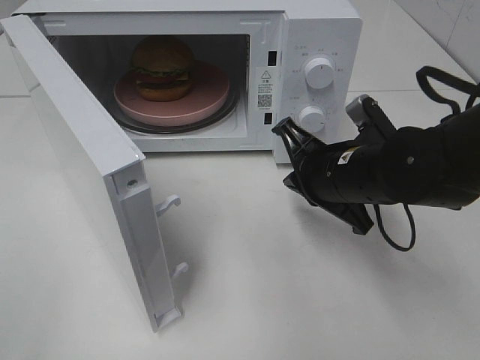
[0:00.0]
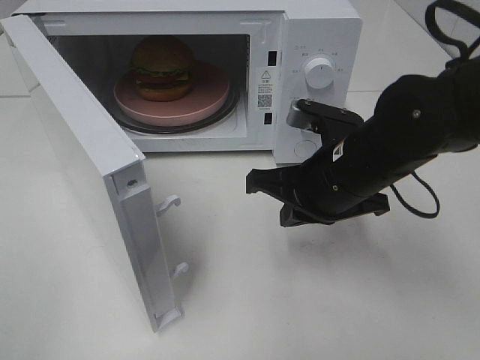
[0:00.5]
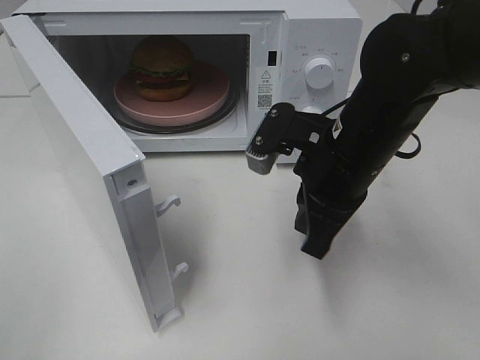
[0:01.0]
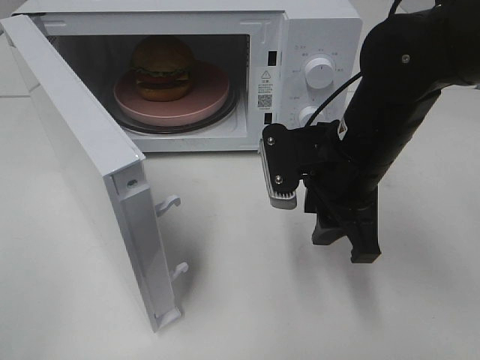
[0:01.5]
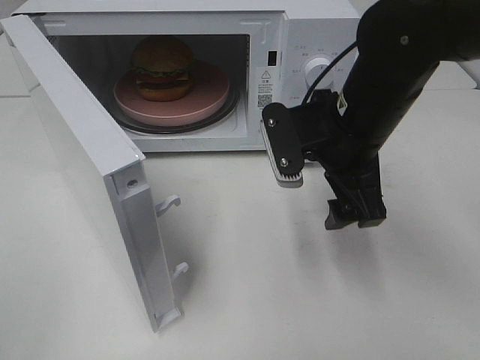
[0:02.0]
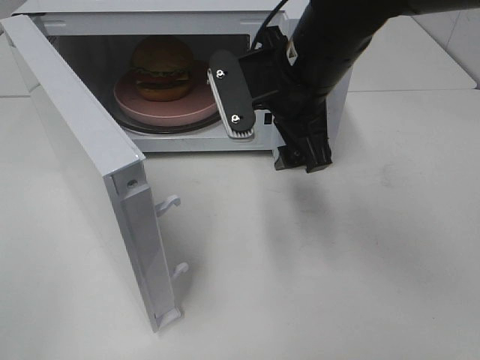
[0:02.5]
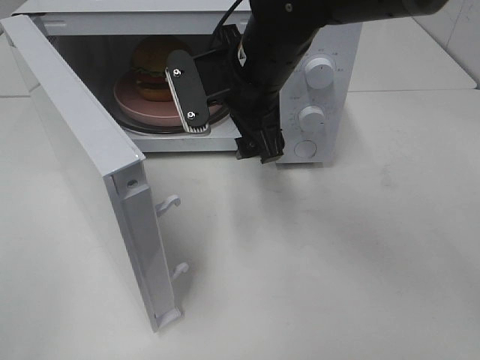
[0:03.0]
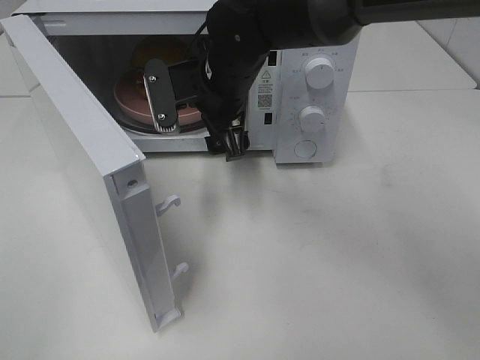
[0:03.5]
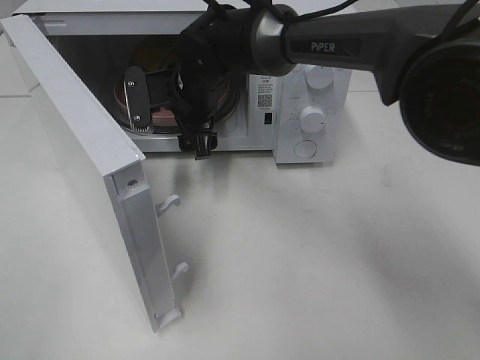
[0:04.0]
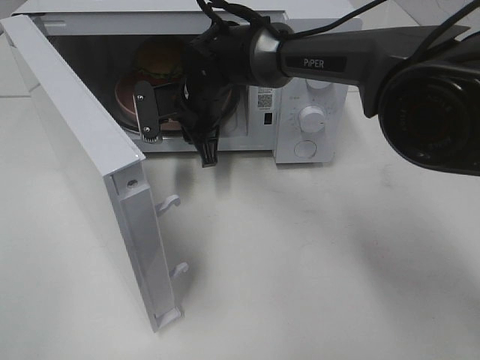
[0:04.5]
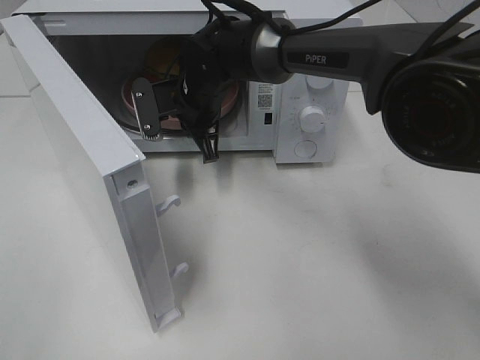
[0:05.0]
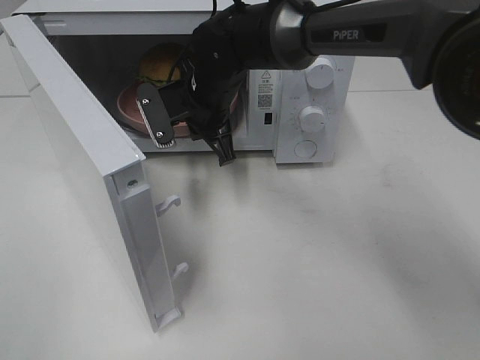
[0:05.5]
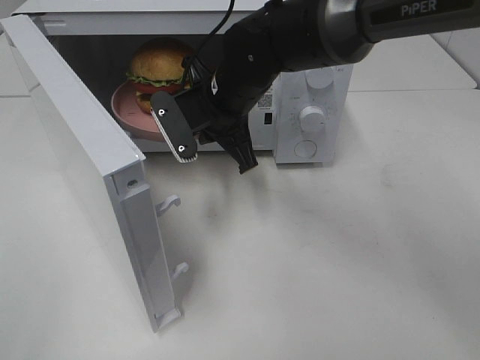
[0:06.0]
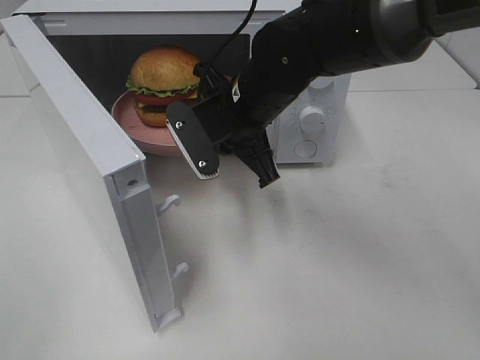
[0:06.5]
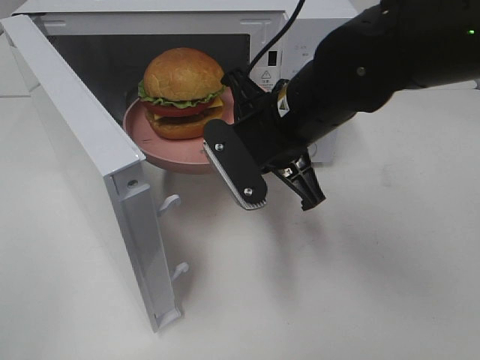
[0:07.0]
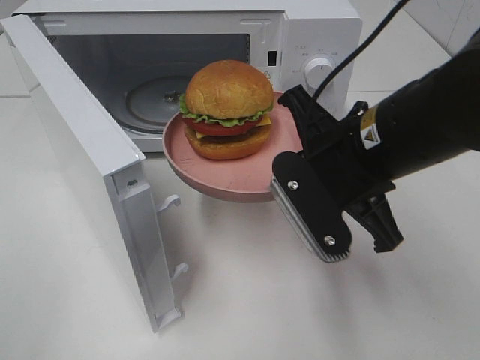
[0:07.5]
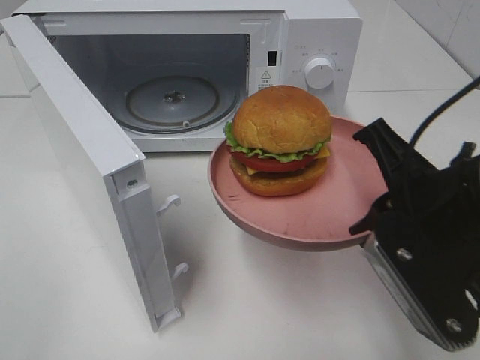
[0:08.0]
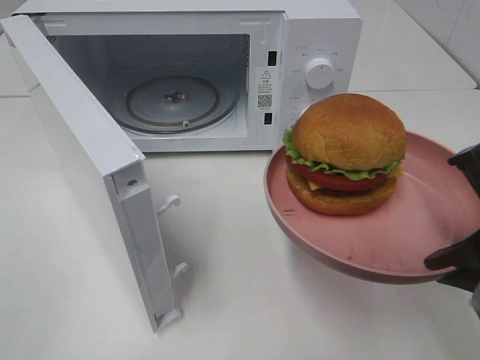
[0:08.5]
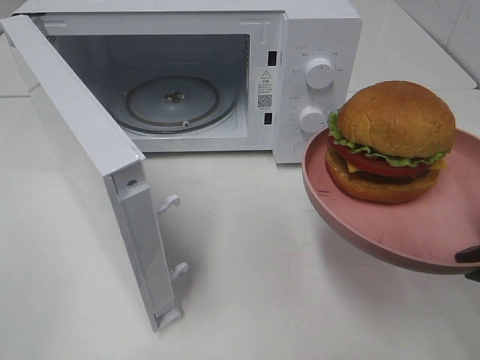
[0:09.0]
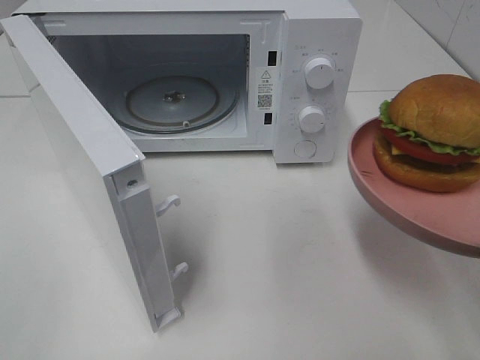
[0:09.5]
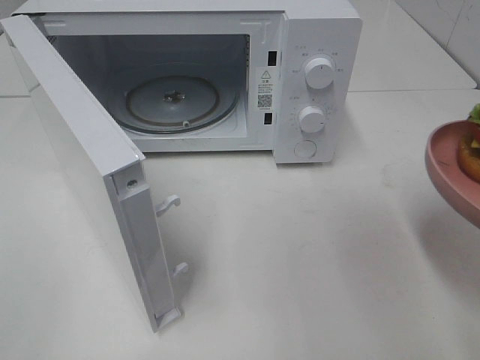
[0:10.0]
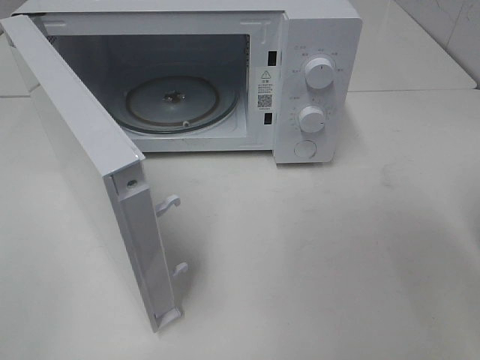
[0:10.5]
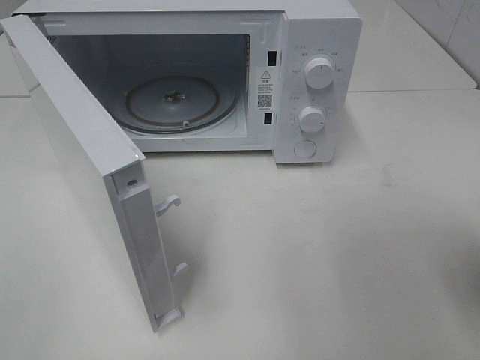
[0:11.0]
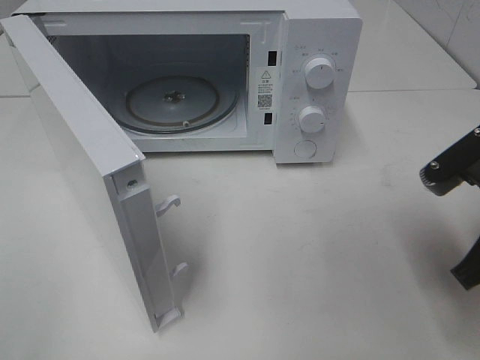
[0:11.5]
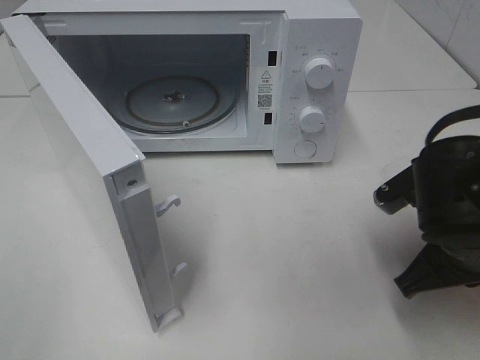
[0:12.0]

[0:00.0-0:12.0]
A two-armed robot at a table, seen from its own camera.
Task of the whole recording: Heat the burger.
Step, 0.0 to 4.5 s: Right hand: grab the plate with the hamburger.
0.0 to 2.0 s: The right gripper goes some 5 cm upward, and opens its fingers.
2.0 to 4.0 s: The right gripper moves to the left and forward, some 20 cm.
4.0 to 6.0 s: The right gripper shifts some 5 cm backward, and closes up.
6.0 to 8.0 s: The right gripper travels backward and to the right by roughly 25 cm.
8.0 to 10.0 s: The right gripper moves to the right and backward, about 10 cm.
10.0 to 12.0 s: The right gripper travels downward, forward and to the left by about 15 cm.

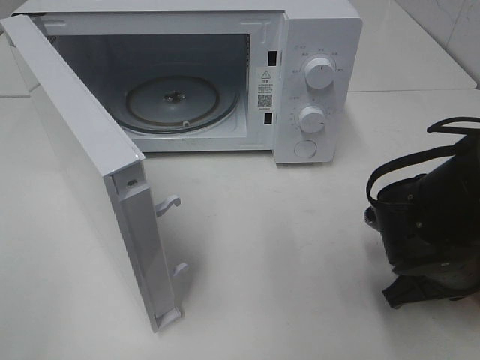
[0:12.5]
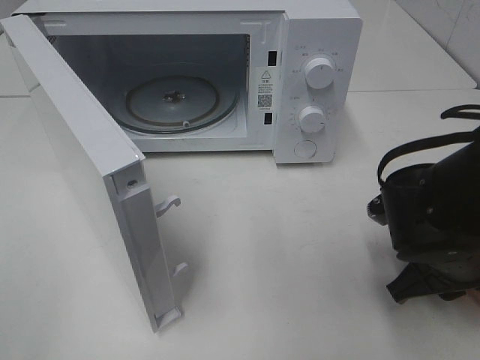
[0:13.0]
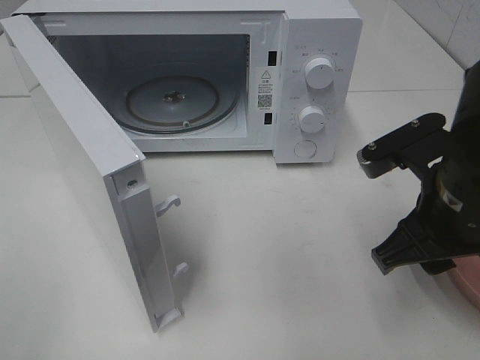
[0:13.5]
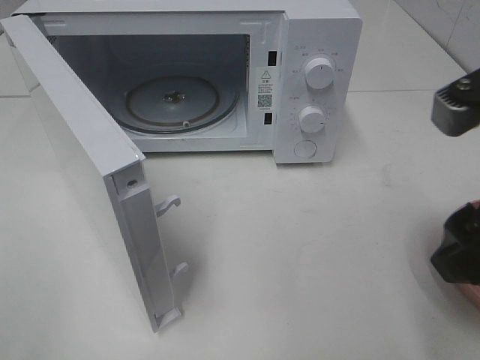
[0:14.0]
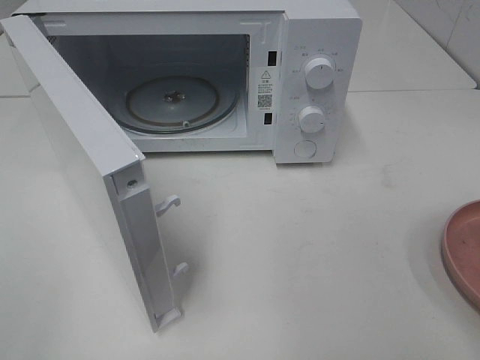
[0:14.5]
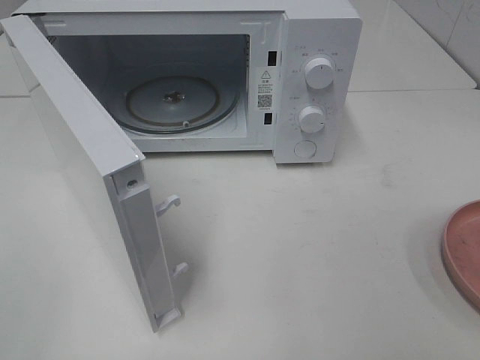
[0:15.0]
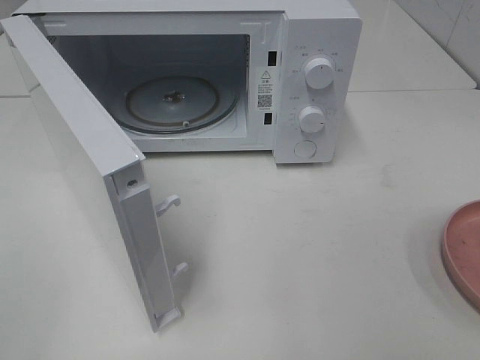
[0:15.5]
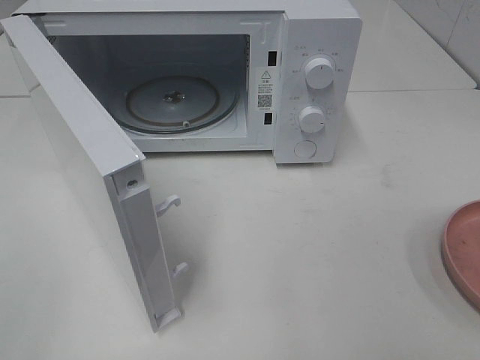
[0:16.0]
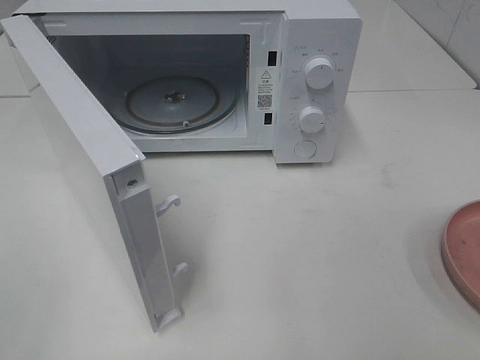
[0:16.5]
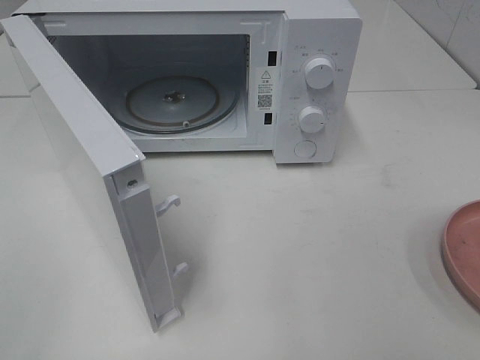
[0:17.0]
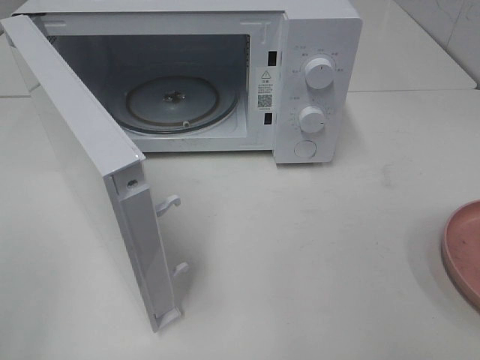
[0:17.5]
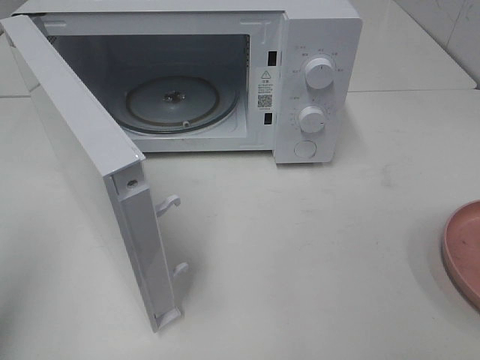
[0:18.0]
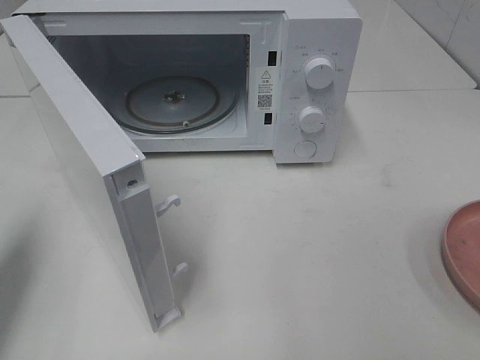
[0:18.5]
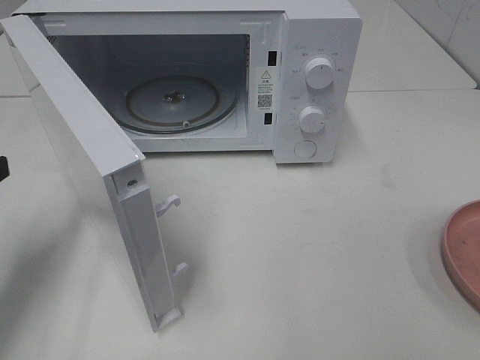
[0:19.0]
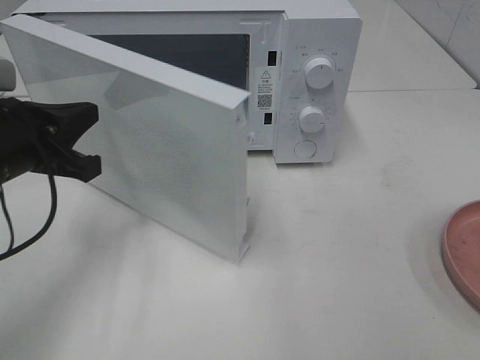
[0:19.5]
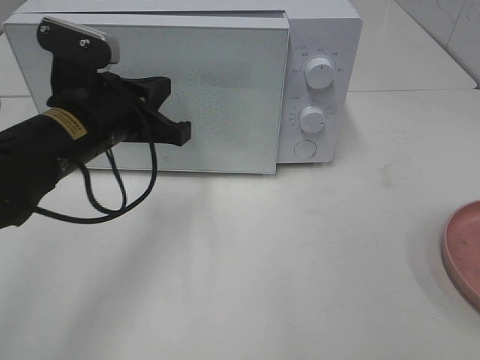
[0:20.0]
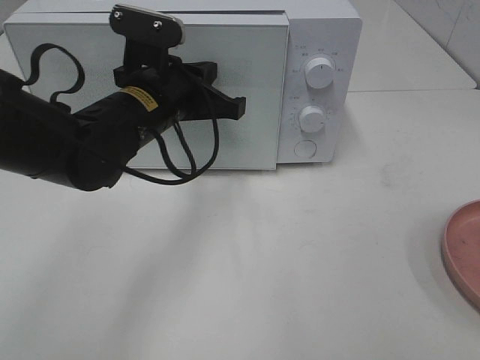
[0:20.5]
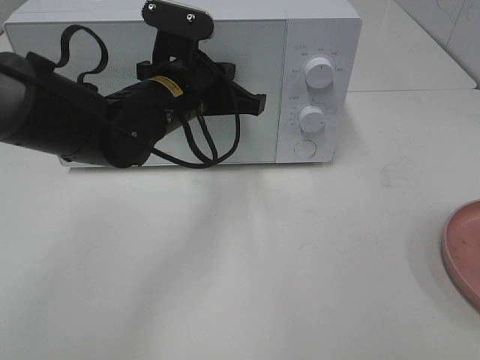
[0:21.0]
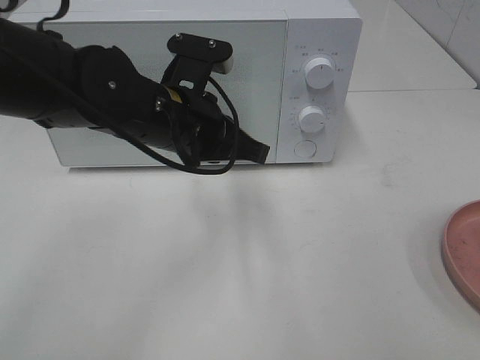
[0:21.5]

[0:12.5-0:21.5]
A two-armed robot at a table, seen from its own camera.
Task of the whole recording: Heat the burger.
12.5 to 14.5 s: The right gripper shifts about 25 cm upward and backward, and opens.
17.0 to 19.5 s: The left gripper is displaced forward and to the right by about 30 cm, and closes its fingers.
19.5 to 21.5 s: The left gripper moves to the right, approximately 15 cm.

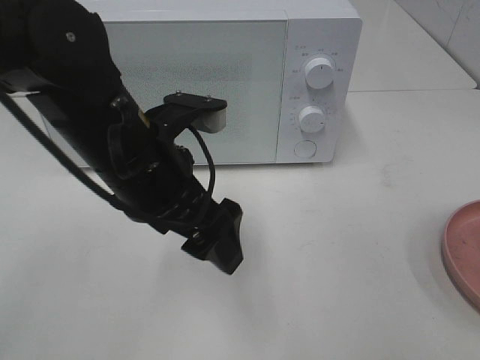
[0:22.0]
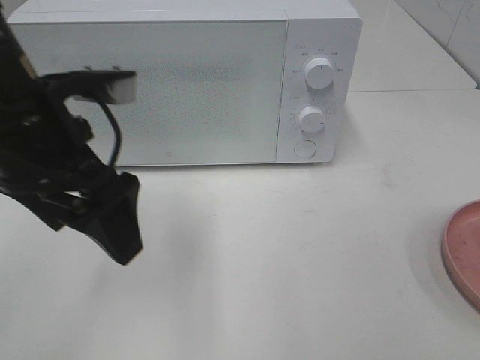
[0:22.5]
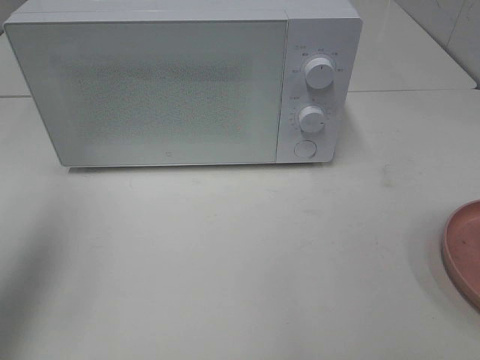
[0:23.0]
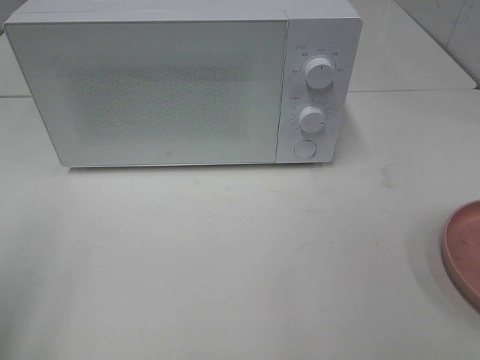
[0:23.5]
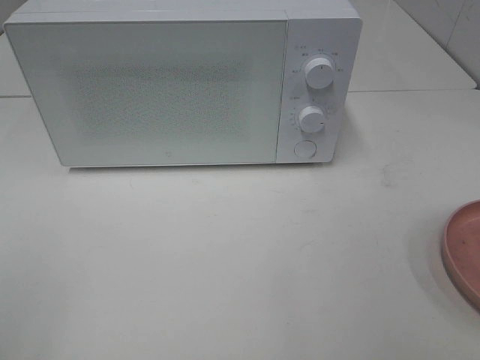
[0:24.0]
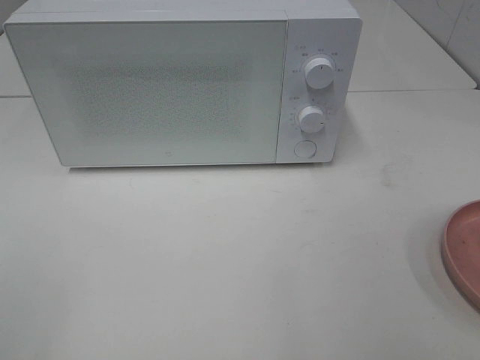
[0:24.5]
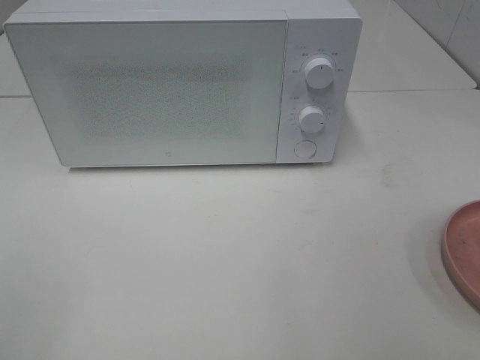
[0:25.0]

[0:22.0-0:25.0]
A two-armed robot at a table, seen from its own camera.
Task of the whole recording: Heat the burger.
22.0 to 23.5 s: The left gripper goes some 25 cm to the left and backward.

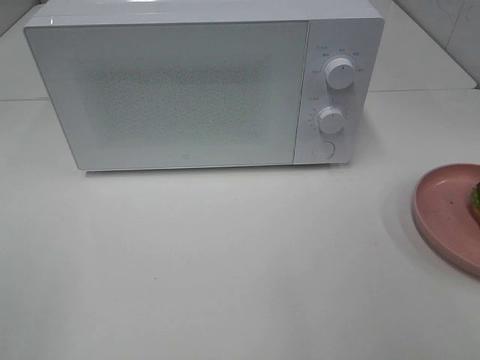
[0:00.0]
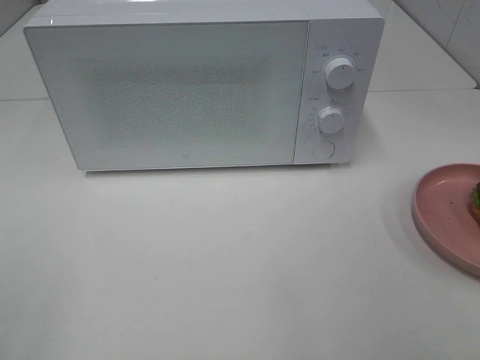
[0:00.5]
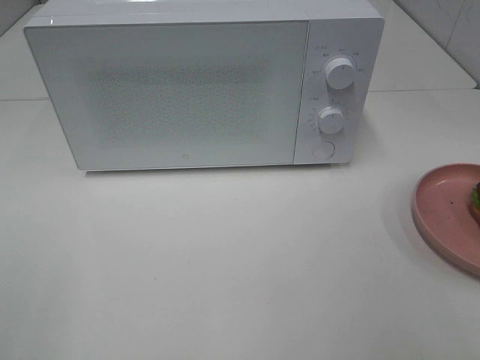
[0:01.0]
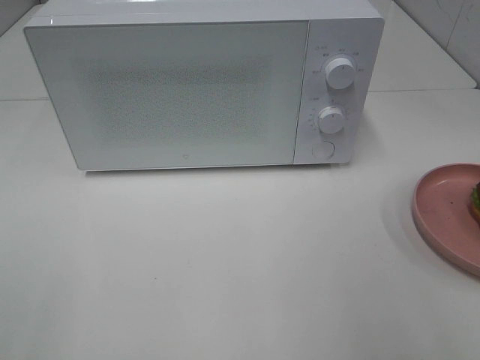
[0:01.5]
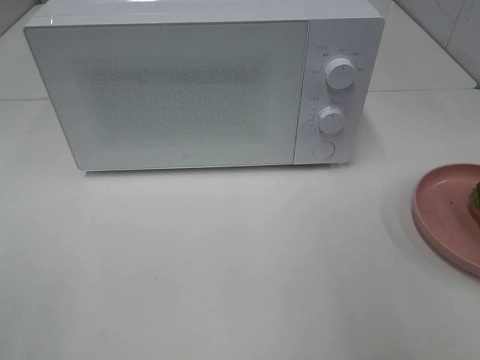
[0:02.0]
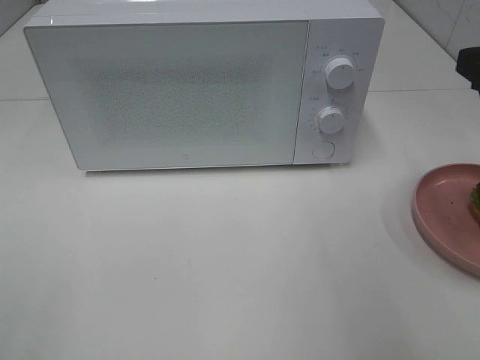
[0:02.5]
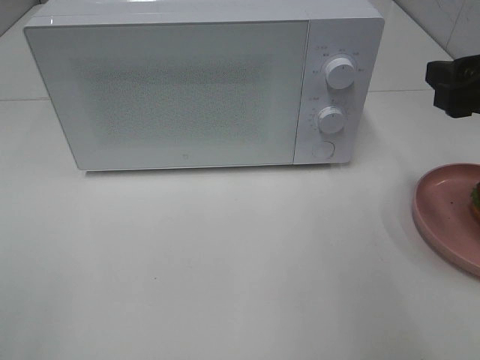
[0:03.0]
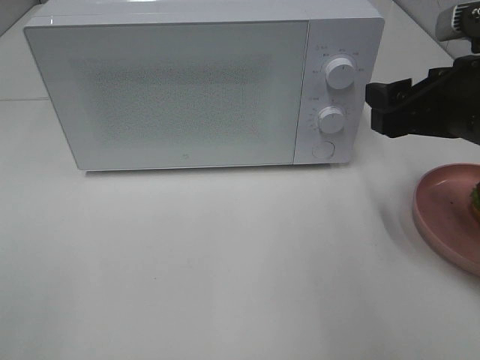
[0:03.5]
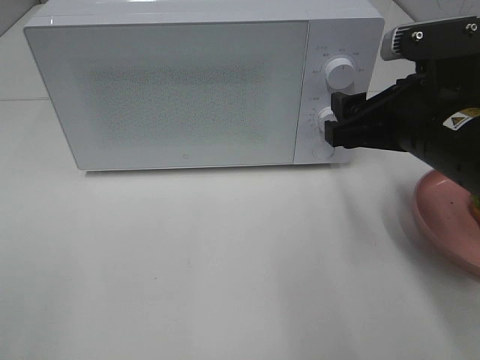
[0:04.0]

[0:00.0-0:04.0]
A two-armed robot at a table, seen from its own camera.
Task of the whole recording: Heat the burger.
2.0 to 4.0 s: The right gripper heads to the left, downward and forward, covering approximately 15 cm.
